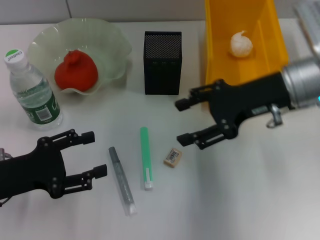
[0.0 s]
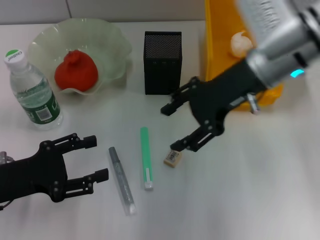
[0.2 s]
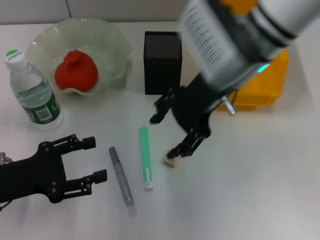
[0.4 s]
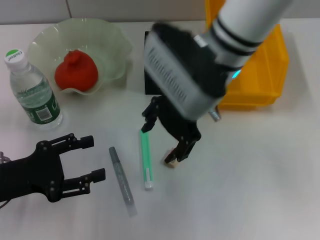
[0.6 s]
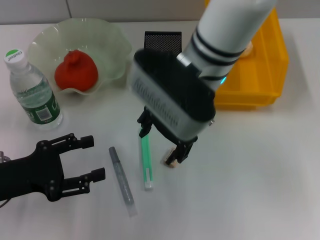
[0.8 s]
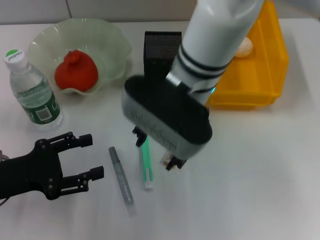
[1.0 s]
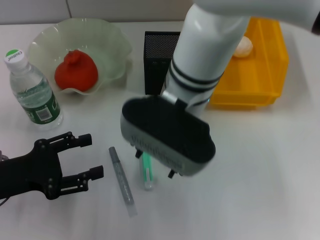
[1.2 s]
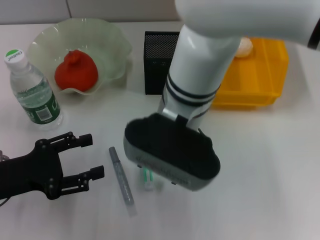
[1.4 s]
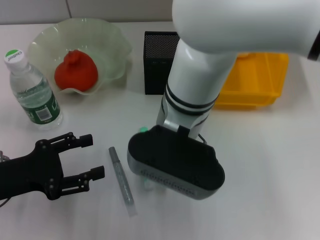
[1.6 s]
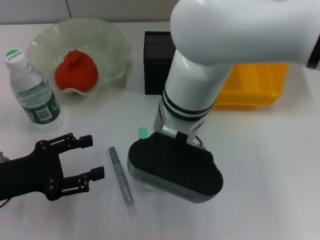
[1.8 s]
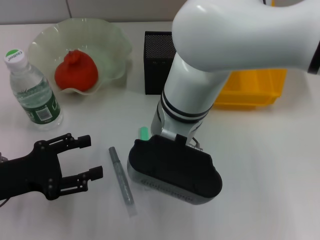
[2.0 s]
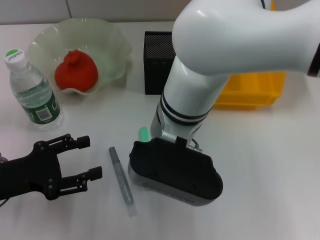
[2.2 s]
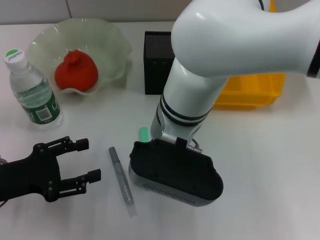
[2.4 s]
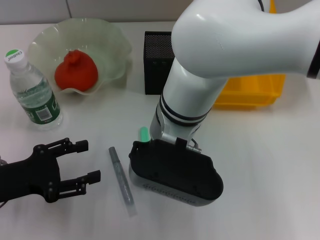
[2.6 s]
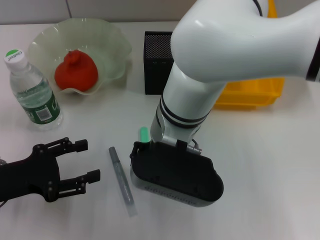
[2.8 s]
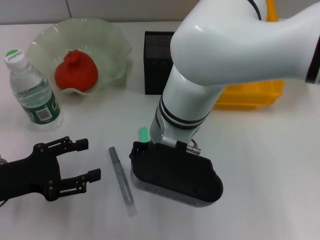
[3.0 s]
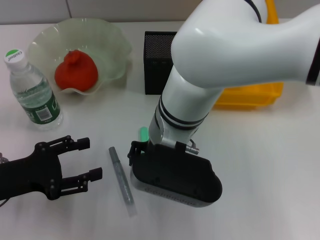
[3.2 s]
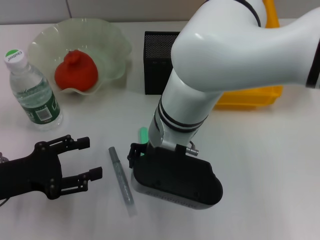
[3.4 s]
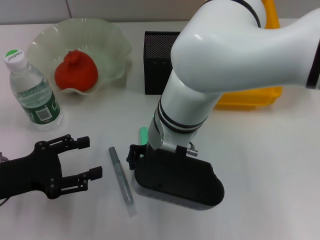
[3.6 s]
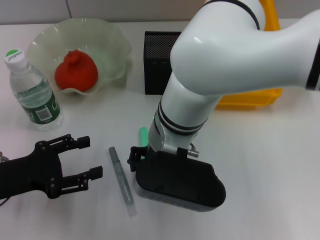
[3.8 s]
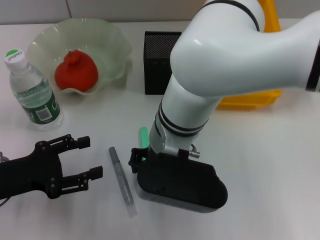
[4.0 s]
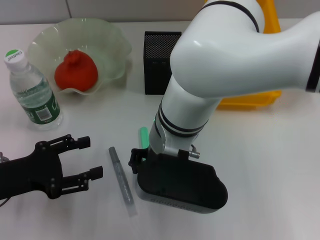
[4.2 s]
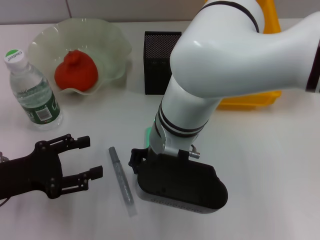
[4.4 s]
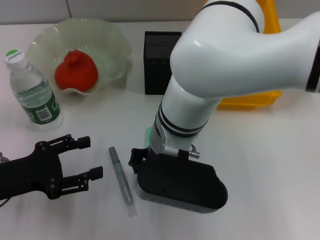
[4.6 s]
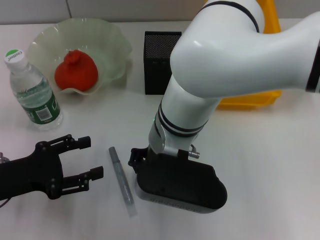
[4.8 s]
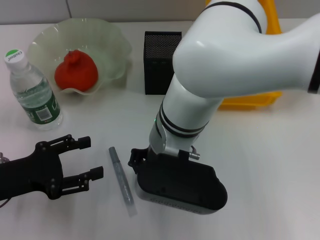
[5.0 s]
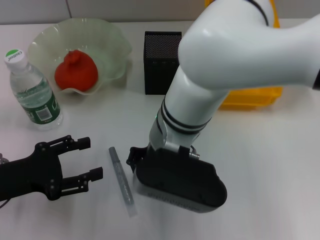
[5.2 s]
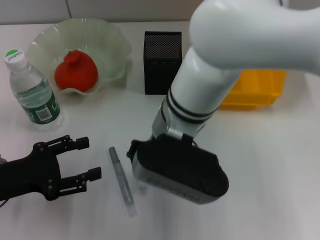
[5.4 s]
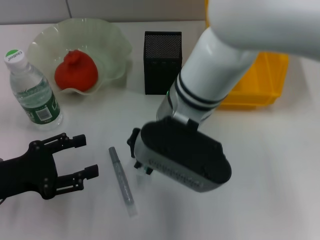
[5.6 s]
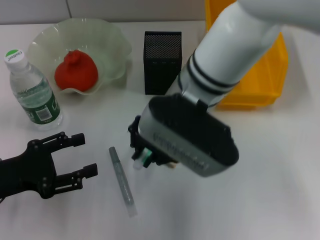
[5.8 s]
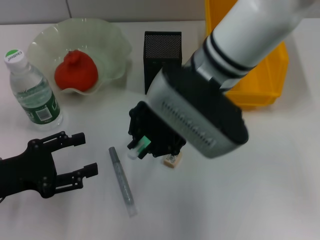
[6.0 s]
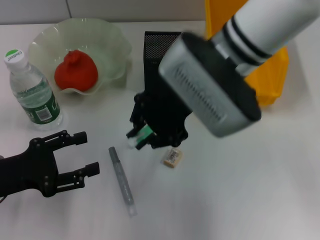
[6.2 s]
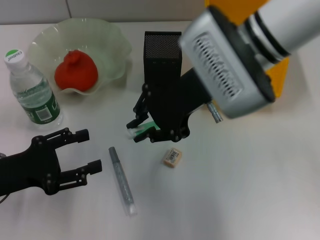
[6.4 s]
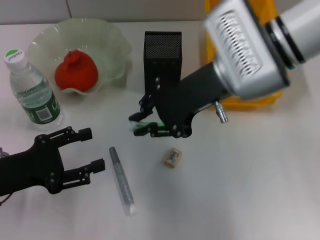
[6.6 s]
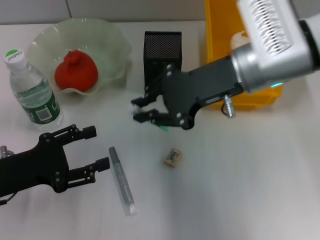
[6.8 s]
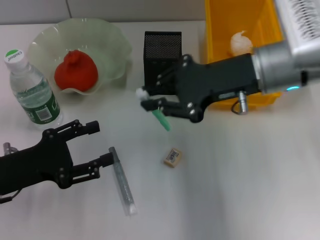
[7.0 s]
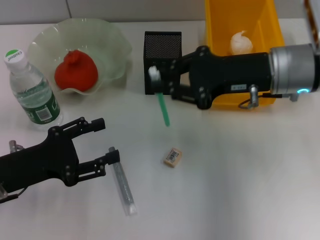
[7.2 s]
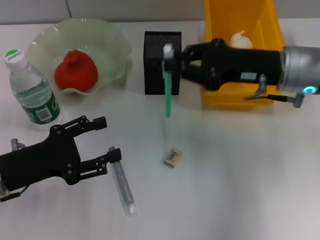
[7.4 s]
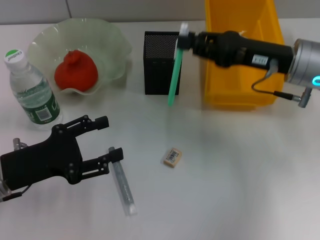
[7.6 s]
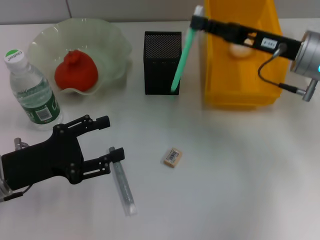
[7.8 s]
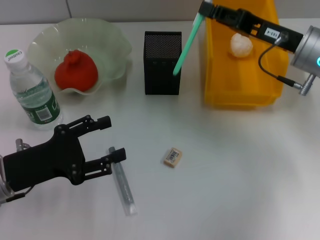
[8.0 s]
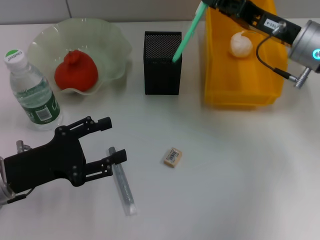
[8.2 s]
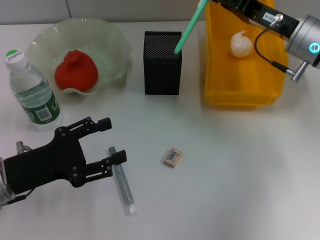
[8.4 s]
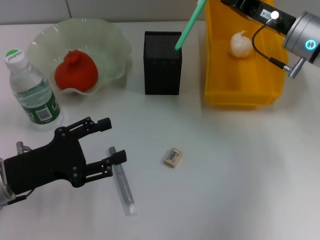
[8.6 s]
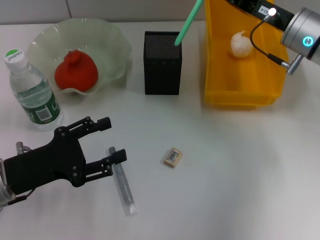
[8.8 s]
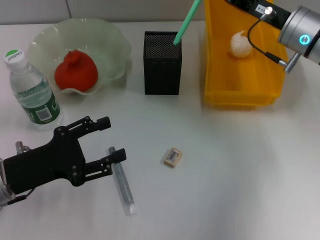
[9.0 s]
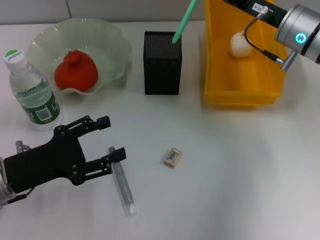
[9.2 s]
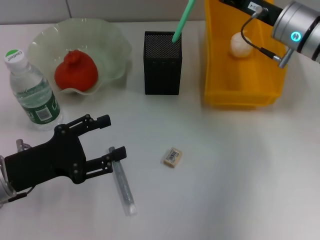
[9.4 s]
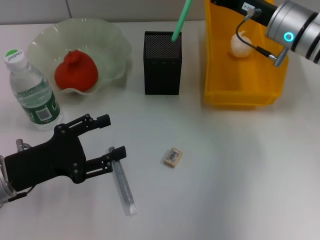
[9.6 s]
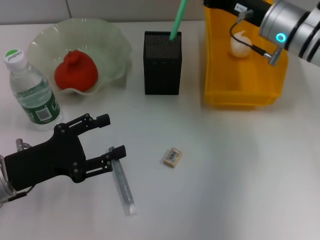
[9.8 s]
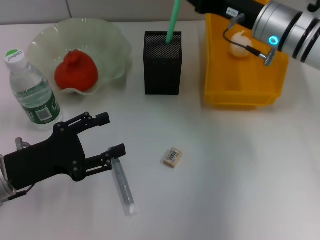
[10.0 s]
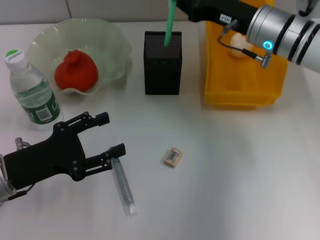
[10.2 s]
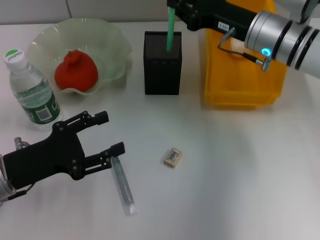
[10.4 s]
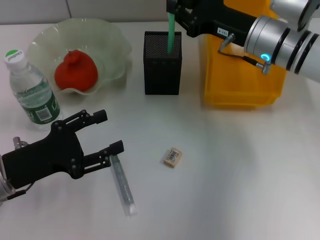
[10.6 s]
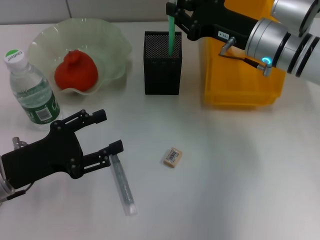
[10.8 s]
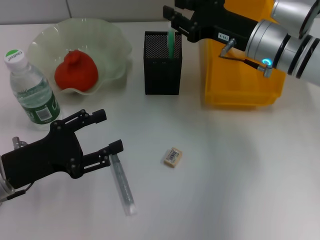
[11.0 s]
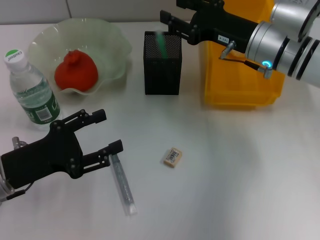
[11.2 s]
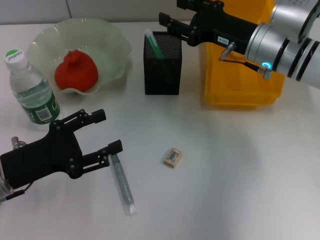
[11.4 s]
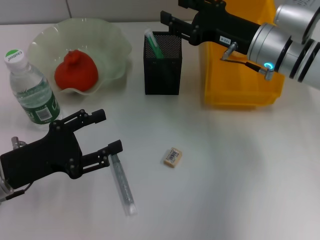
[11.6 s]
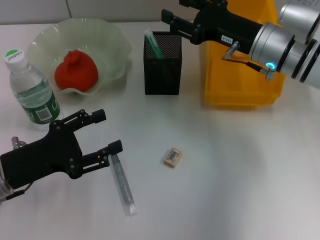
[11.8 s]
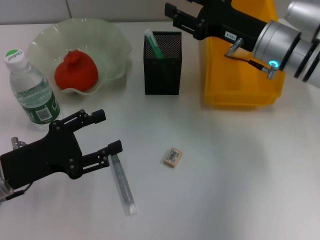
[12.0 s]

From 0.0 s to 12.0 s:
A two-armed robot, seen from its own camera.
Step, from 0.0 s to 4.6 s: Grab the blue utility knife with the right hand.
Step, from 4.8 s to 11.4 s: Place the blue utility knife into the pen holder with the right hand.
From 0.0 s to 1.6 s: The right gripper heads to the left, covering about 20 cm.
From 1.6 s to 3.0 s: The right gripper closes up.
From 3.0 s to 4.4 s: Both grippers stay put.
From 4.4 s to 6.0 s: The right gripper moves upward, some 5 cm.
From 6.0 s to 7.6 s: The right gripper goes about 15 cm to the right.
From 10.4 s to 12.0 s: The right gripper opens its fingers.

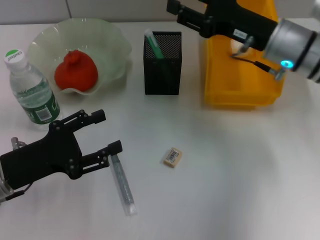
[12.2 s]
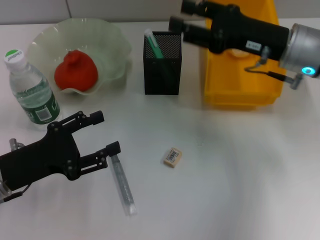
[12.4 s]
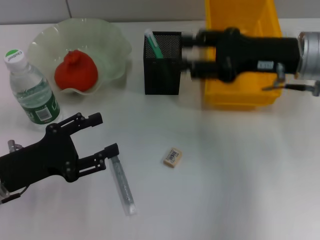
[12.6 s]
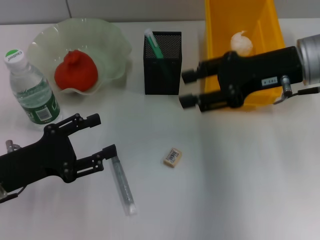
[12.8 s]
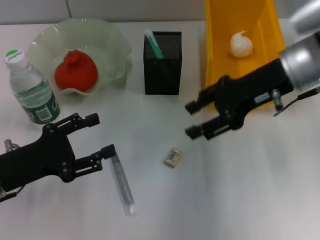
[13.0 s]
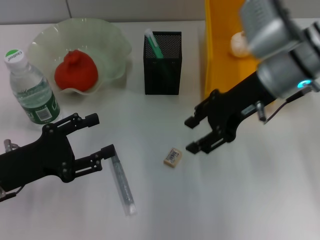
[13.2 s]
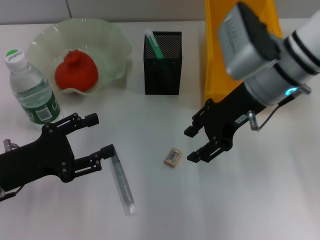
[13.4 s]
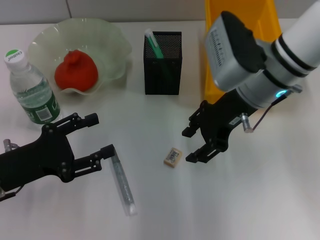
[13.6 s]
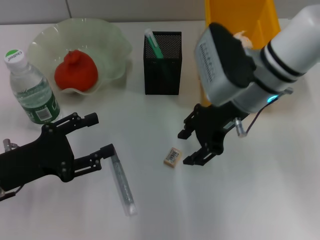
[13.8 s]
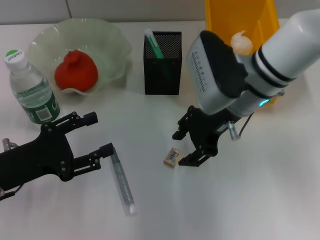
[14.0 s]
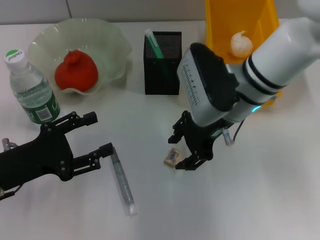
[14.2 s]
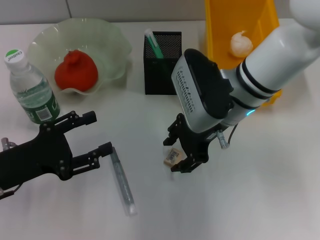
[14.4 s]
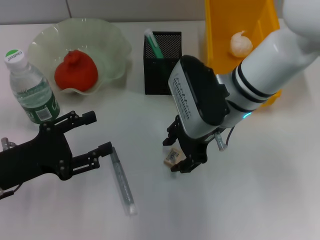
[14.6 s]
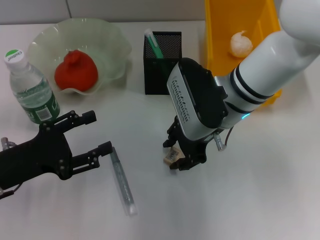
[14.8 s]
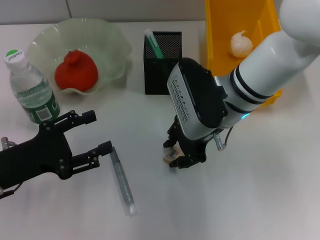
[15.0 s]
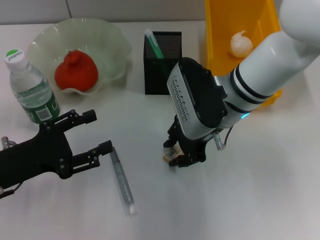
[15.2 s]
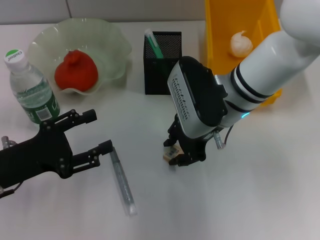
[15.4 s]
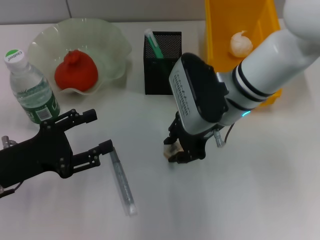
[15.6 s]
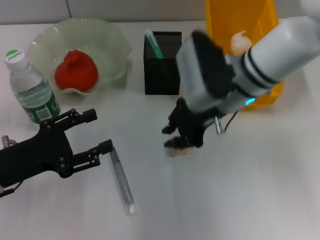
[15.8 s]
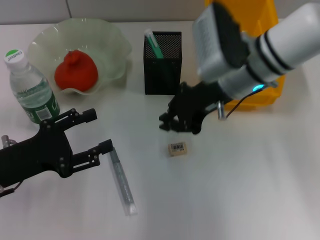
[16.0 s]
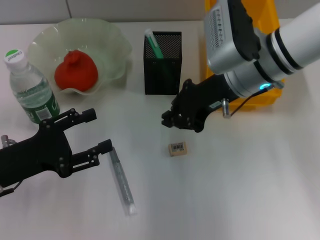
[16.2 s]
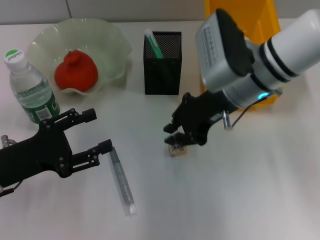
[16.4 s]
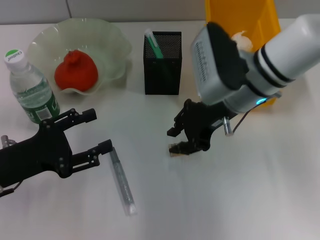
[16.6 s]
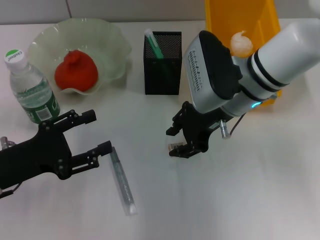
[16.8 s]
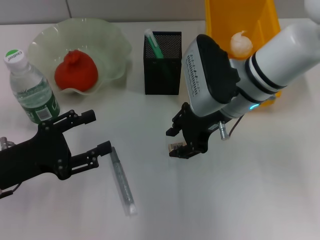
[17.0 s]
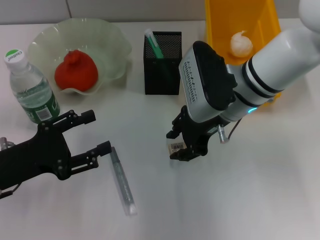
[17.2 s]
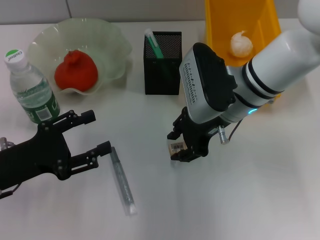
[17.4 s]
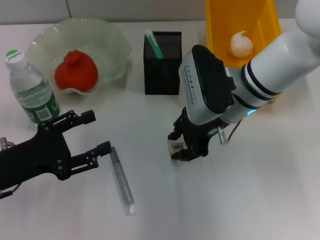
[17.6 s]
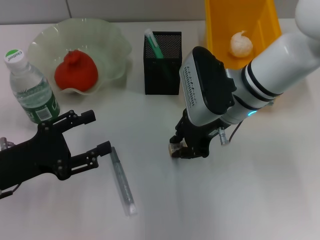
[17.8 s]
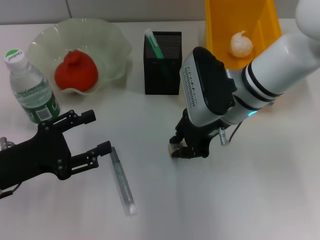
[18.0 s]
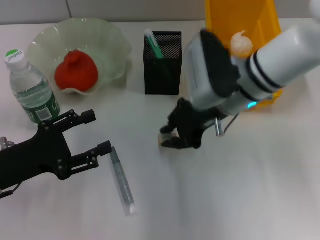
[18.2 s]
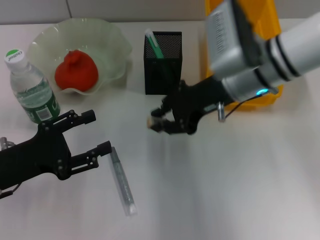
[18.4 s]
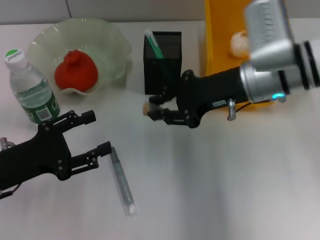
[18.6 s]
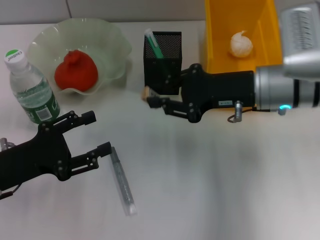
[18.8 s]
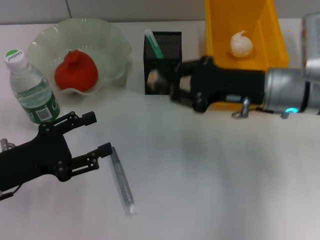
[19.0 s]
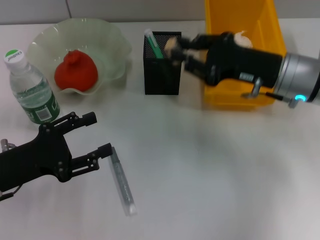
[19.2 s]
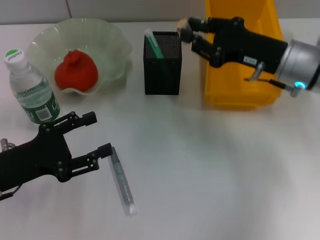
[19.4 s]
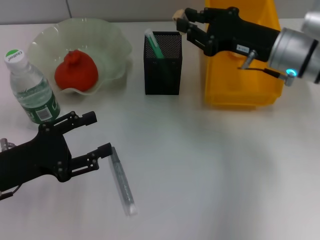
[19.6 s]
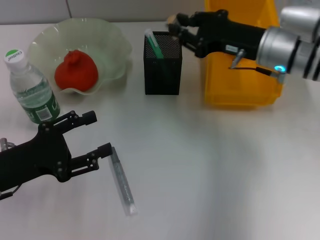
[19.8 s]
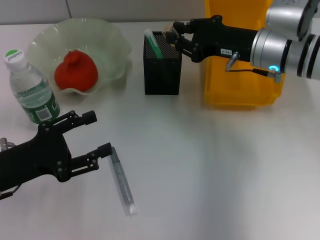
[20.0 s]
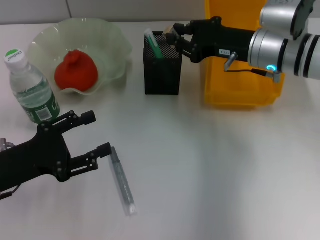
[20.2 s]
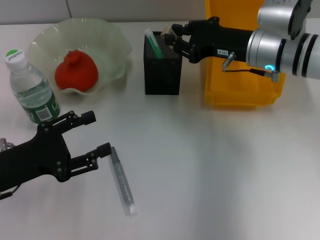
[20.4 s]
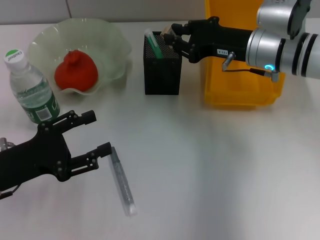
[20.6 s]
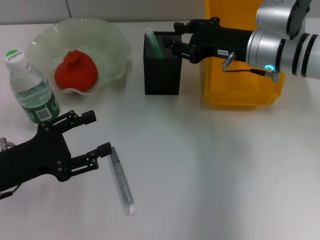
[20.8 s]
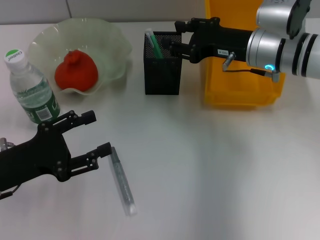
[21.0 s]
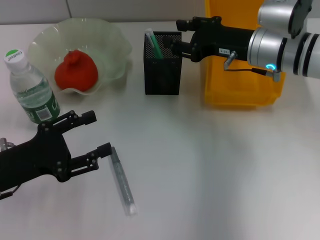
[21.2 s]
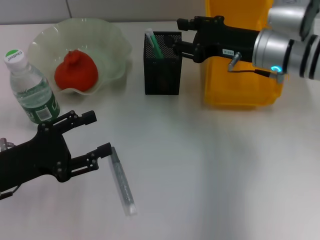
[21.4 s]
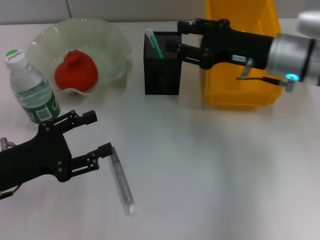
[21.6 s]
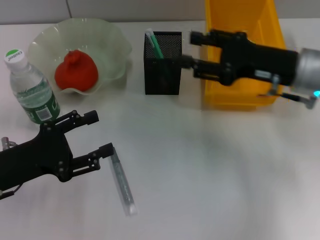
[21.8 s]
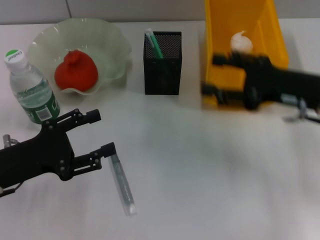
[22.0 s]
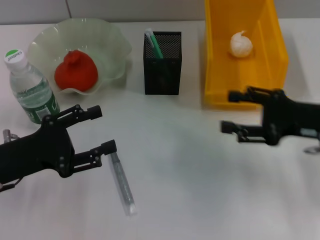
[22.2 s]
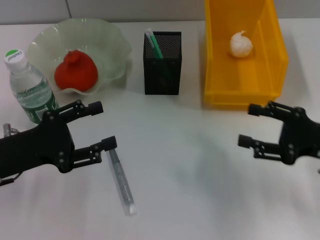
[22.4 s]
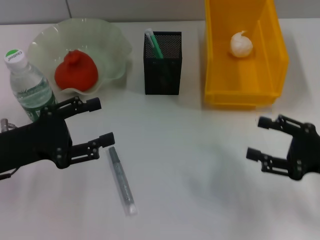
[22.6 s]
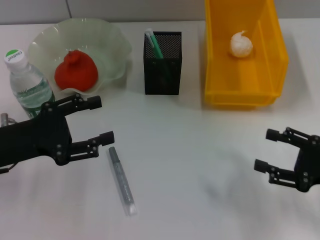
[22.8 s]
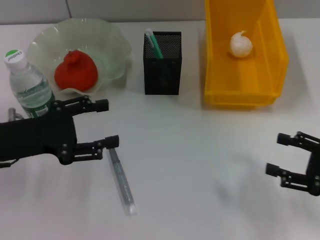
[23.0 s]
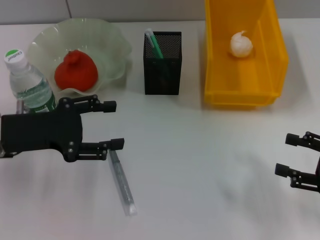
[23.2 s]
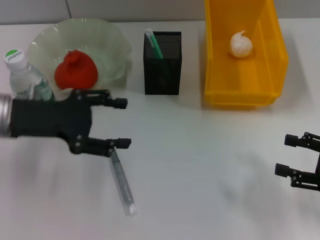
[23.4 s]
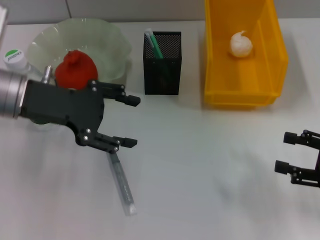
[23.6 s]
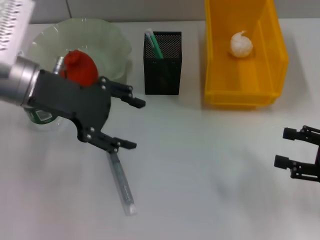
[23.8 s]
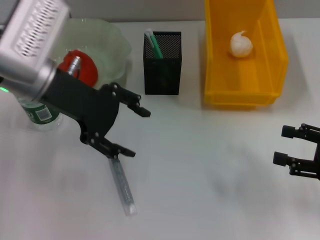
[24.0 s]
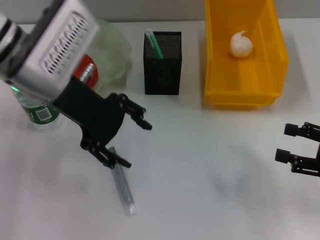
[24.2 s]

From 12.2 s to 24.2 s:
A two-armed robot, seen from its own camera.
Step, from 12.2 s to 17.6 s: Grab the eraser with the right hand.
Step, from 18.0 s to 21.0 s: Put the eraser into the pen holder with the right hand.
From 12.2 s to 13.8 s: The right gripper is displaced to the left by approximately 5 cm.
From 13.8 s to 15.2 s: The grippers make only small movements.
From 16.6 s to 18.2 s: The right gripper opens and closes again.
From 18.2 s to 19.8 s: The right gripper is displaced to the right by some 10 cm.
From 19.8 s to 21.2 s: The right gripper opens.
From 21.2 s to 22.6 s: The right gripper shifts approximately 20 cm backward and to the right, and opens up.
From 22.6 s to 24.2 s: The left gripper moves upward, to the right and forward, approximately 20 cm.
